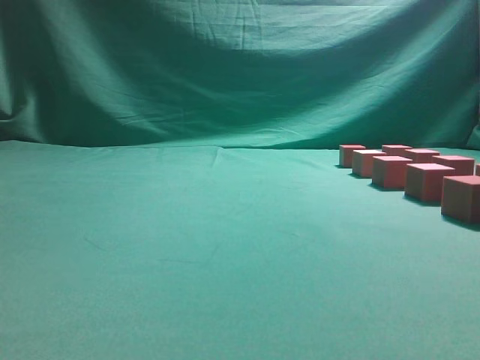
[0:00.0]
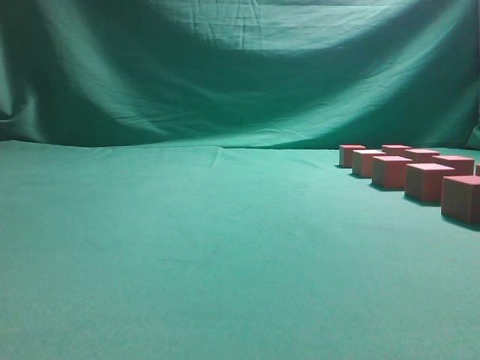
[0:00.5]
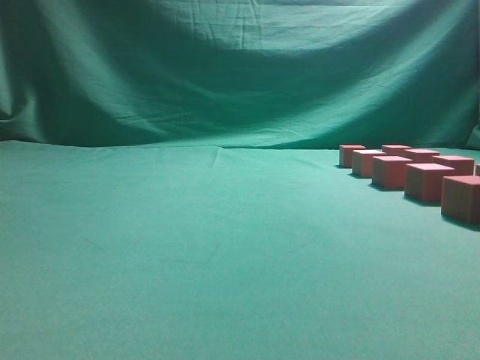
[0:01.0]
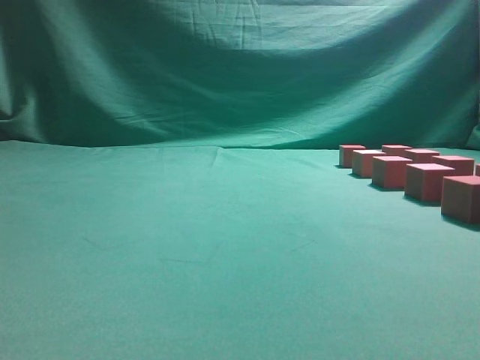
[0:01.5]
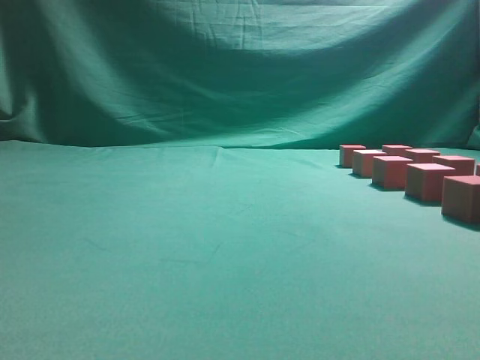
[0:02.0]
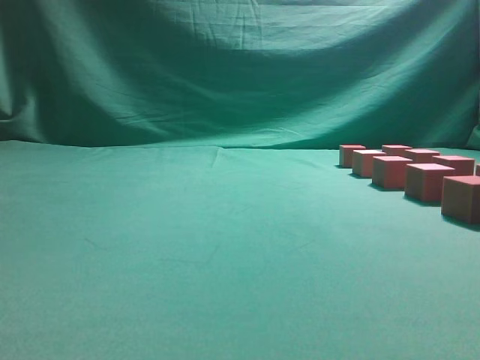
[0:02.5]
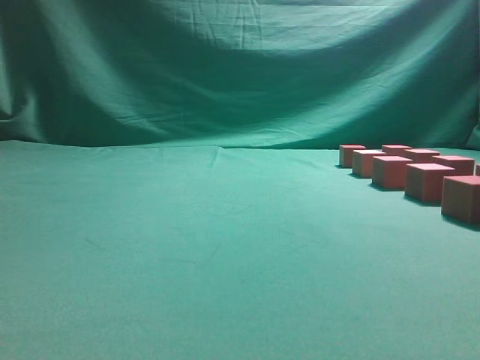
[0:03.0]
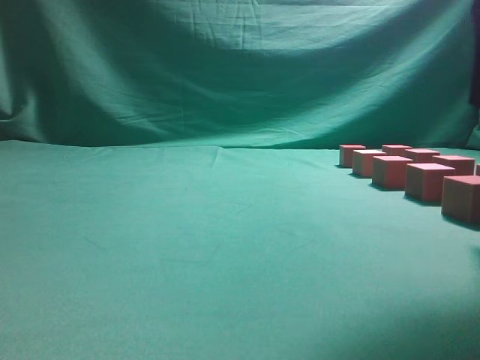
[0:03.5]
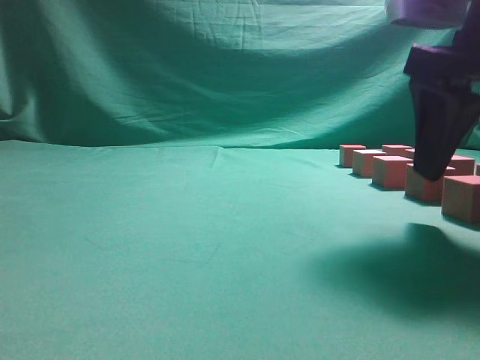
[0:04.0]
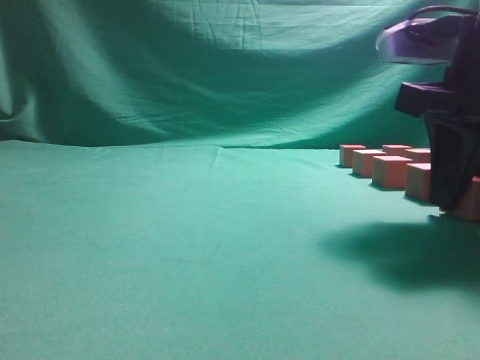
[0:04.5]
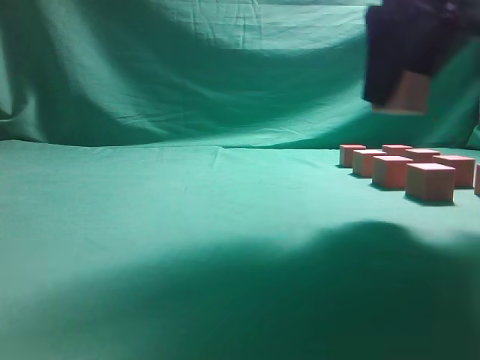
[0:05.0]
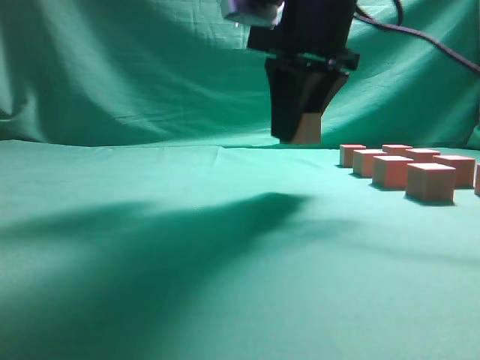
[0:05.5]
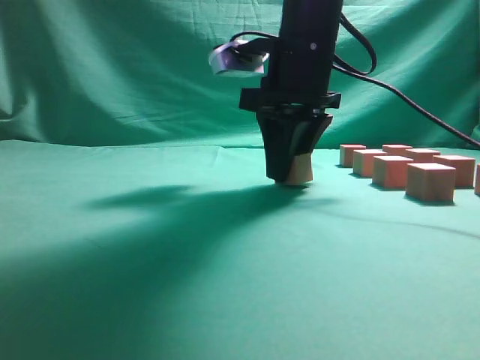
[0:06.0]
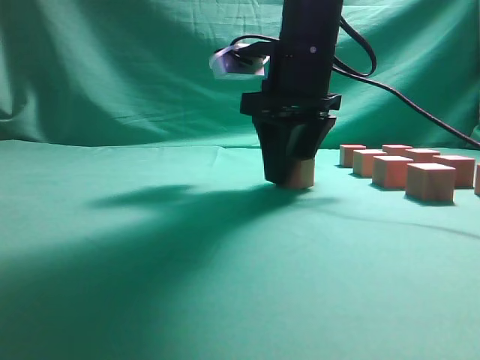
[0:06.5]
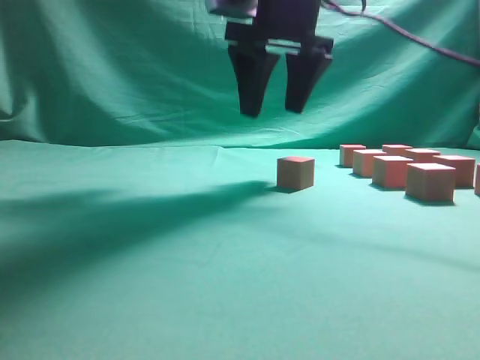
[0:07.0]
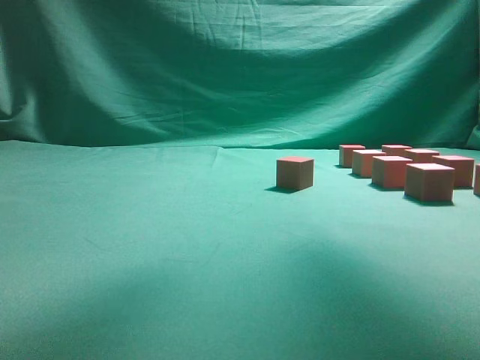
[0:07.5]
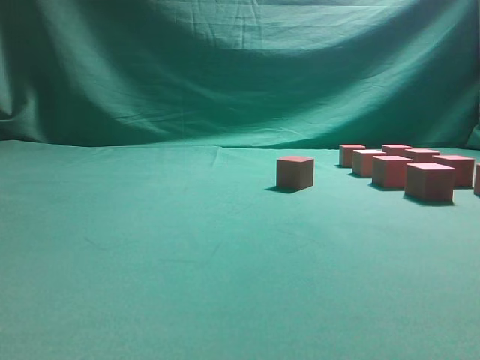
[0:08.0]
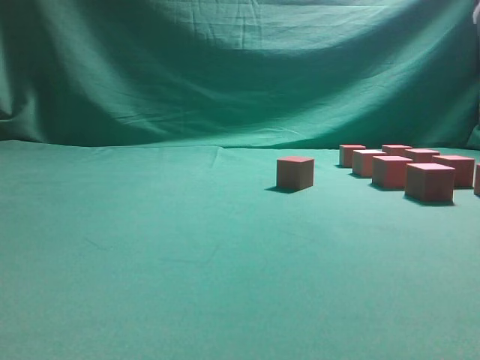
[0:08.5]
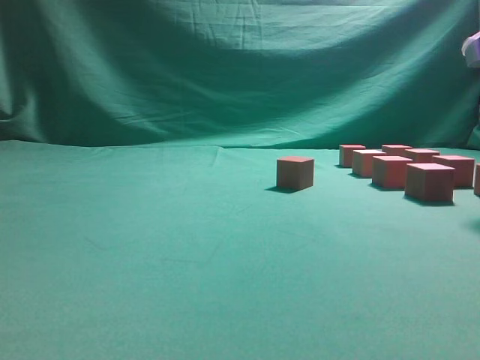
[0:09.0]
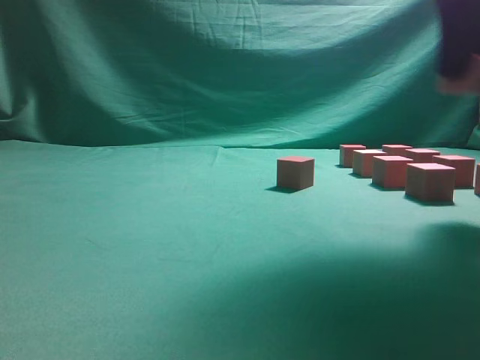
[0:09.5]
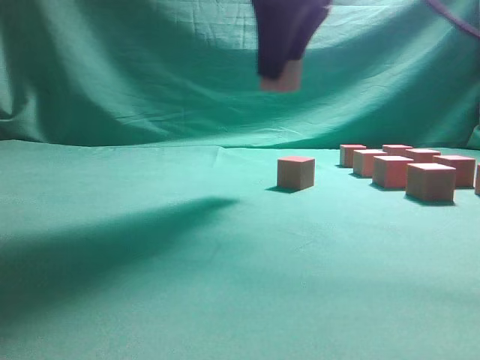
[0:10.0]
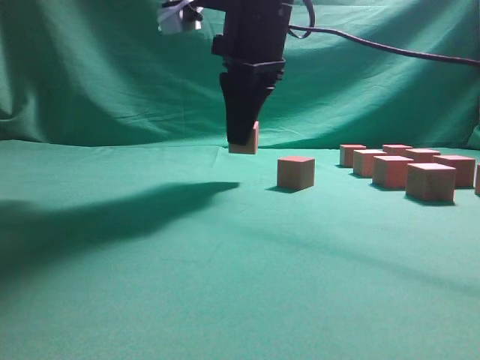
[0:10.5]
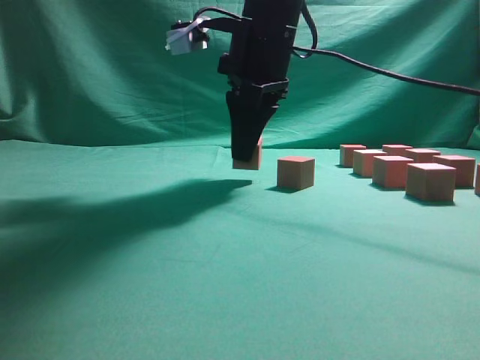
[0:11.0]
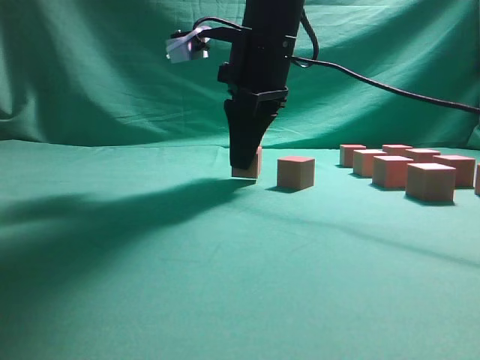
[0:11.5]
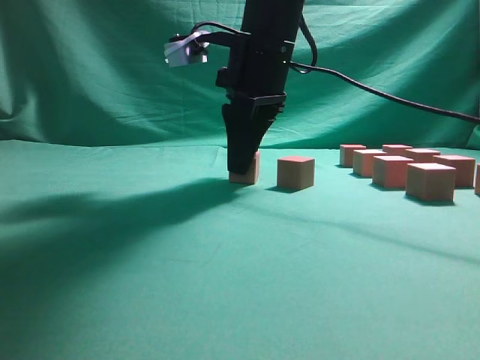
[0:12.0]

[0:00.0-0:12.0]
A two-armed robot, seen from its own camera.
Task of the whole recording: pick up the multiple cubes in two columns one by one and place them in another position on the table.
Step, 0:00.0 to 0:04.5: Pick up the block on the table.
Step, 0:05.0 to 0:07.0: Place the block at the correct position to assemble the letter S.
Step, 0:07.5 to 0:09.0: Pick up the block on the table.
0:02.0 to 0:04.0: The right gripper goes approximately 25 cm forward and to the left, and opens its fingers.
0:04.0 to 0:06.0: The right gripper heads to the left and forward, covering approximately 20 cm, and closes up.
0:06.0 to 0:08.0: The right gripper moves to the right, backward and upward, some 25 cm, and opens.
0:08.0 to 0:10.0: The right gripper moves to the left and forward, some 20 cm, and closes.
0:10.0 to 0:12.0: The right gripper is displaced downward by approximately 10 cm.

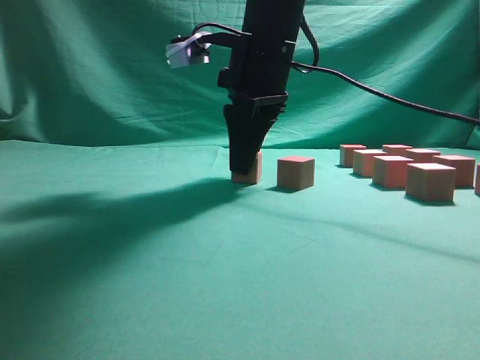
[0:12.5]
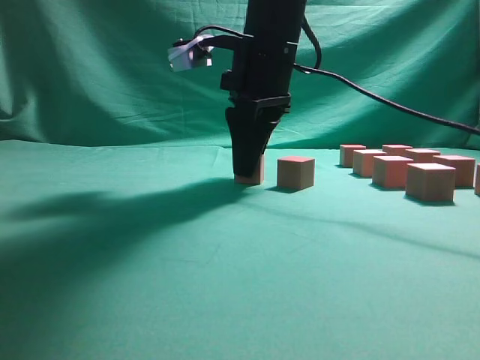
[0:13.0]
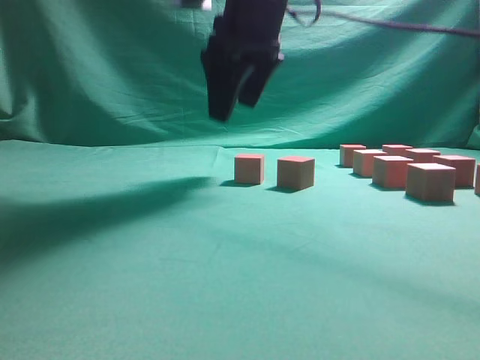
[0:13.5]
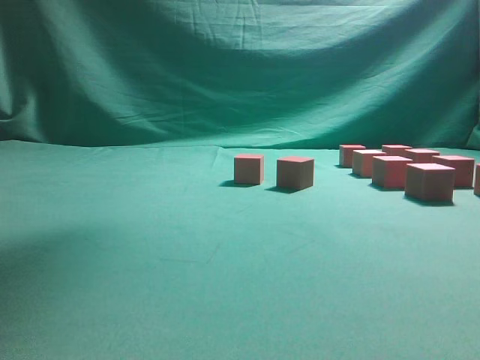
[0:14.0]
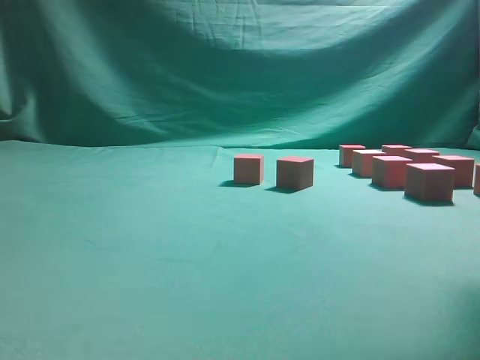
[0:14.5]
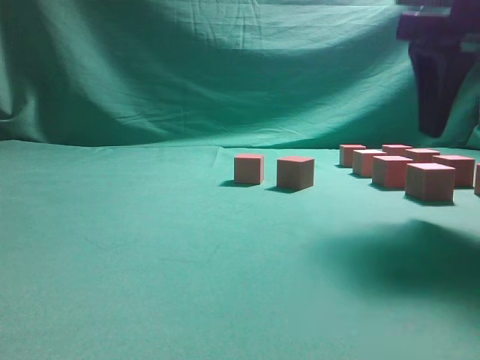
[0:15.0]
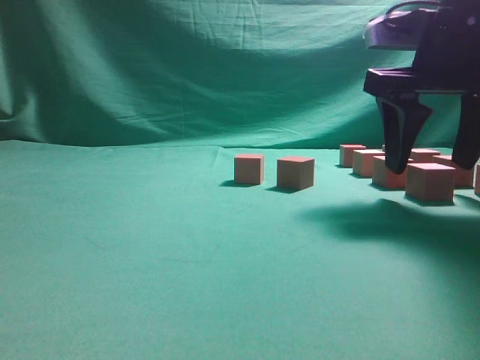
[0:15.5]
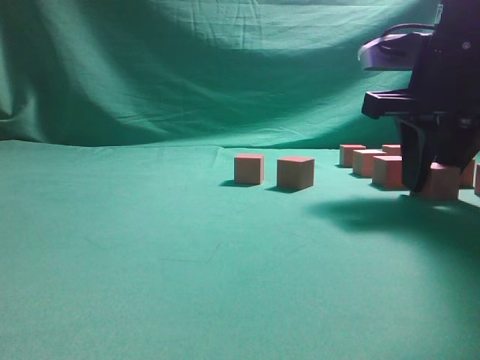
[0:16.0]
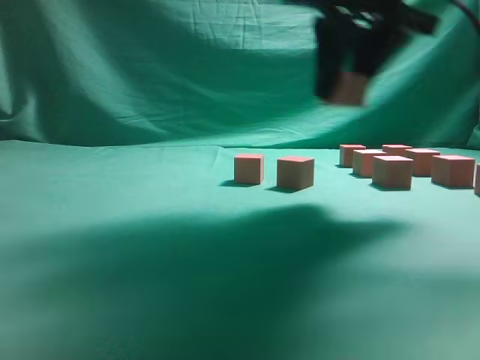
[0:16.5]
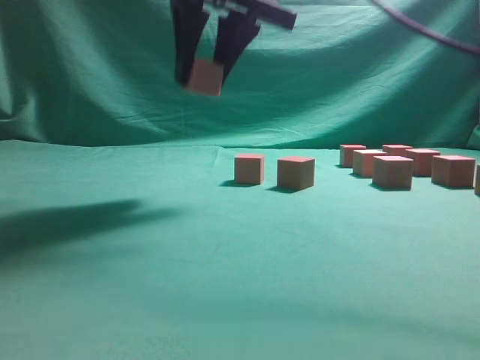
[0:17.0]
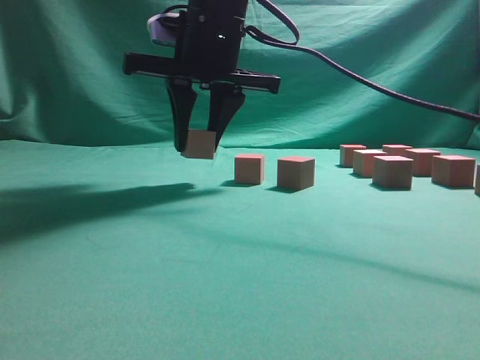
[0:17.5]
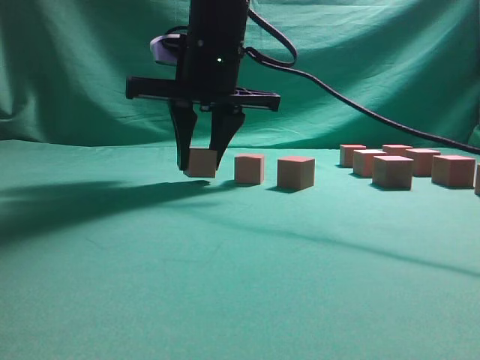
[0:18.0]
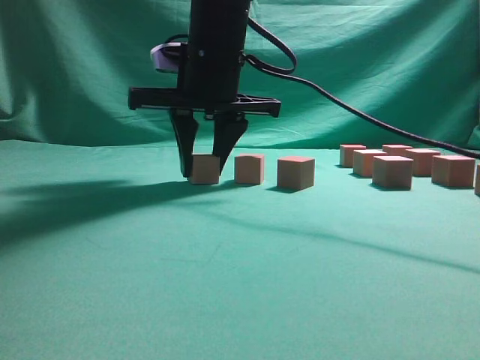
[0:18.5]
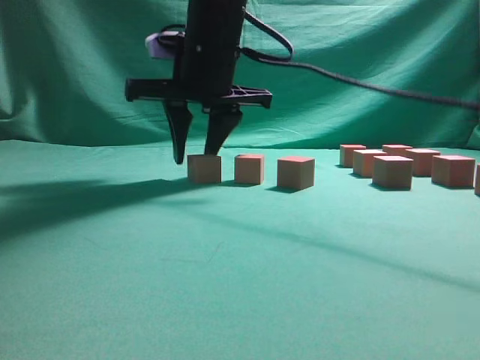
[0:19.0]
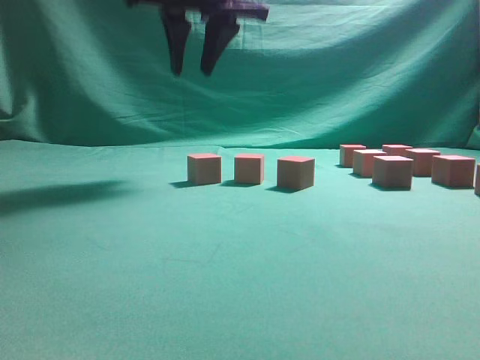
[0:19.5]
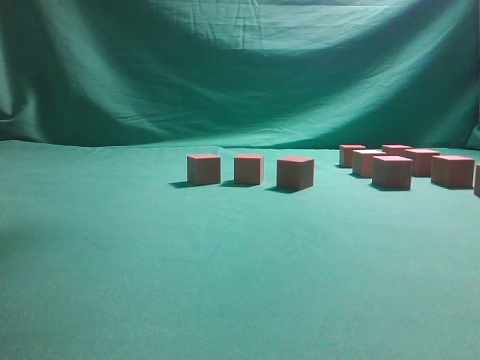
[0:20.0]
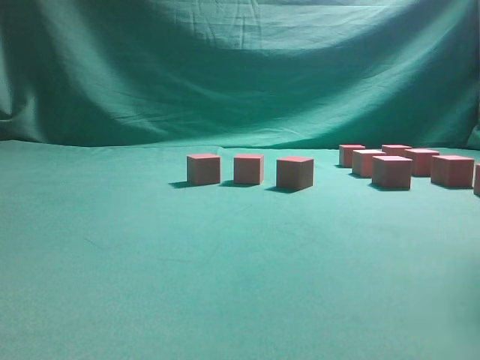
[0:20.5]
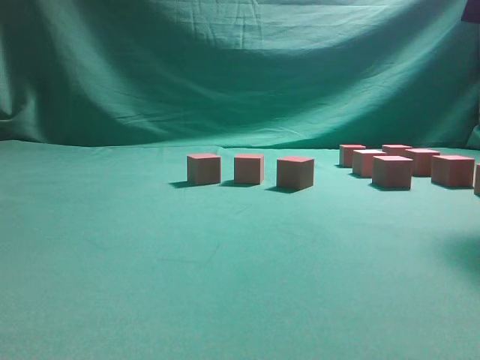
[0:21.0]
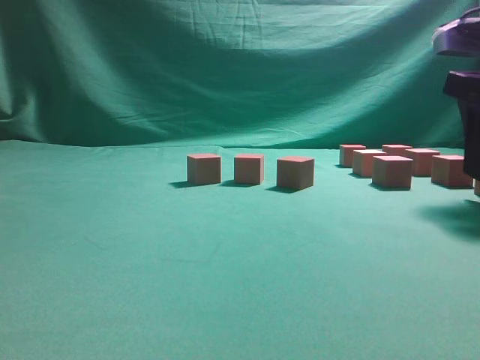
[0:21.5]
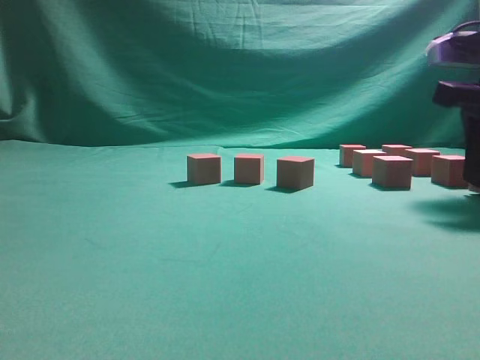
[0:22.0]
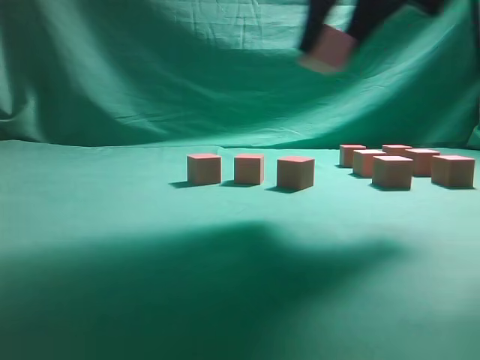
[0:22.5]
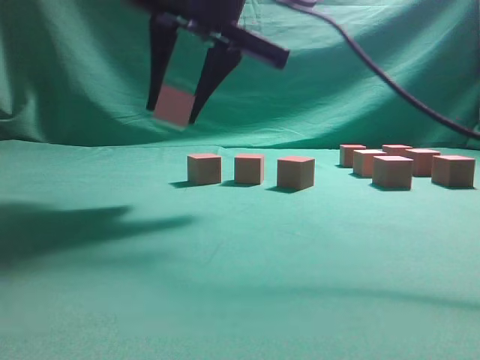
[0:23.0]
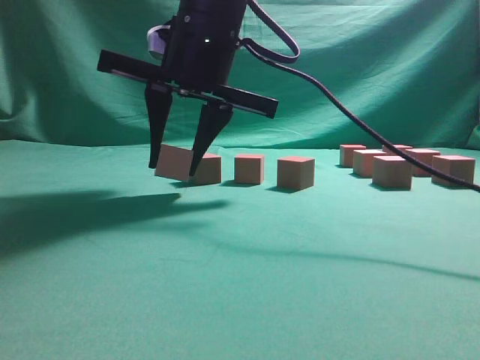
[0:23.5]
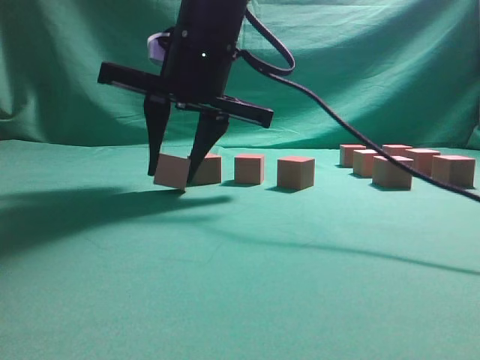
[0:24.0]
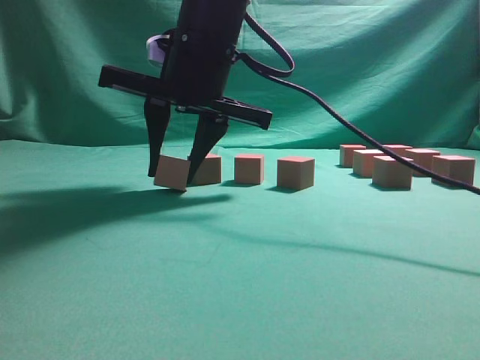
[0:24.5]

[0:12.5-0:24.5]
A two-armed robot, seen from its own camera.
Task of the whole recording: pick up the multiple cubes in two columns one by one and place them in another position on the table.
Step, 0:14.0 to 0:16.0: Pick up the block on the table.
Step, 0:16.5 to 0:19.5: Place the block at the correct position to assemble the letter S.
Step, 0:20.0 to 0:22.0: Pick up the block on the table.
0:12.5 to 0:14.5: The right gripper goes roughly 25 cm to the right, upward and backward, and opens up.
0:14.5 to 0:16.5: The right gripper travels downward, to the left and forward by roughly 15 cm, and closes.
0:16.5 to 0:18.5: The right gripper travels to the left and downward by some 15 cm.
0:18.5 to 0:20.5: The right gripper moves to the right and upward, roughly 30 cm.
0:20.5 to 0:22.5: The right gripper is displaced to the left by some 15 cm, and goes downward and returns, approximately 15 cm each way.
0:22.5 to 0:24.5: The right gripper moves to the left and downward, about 20 cm.

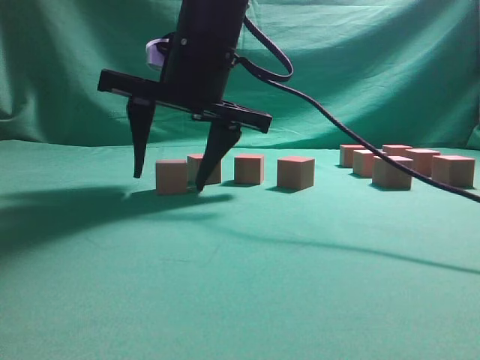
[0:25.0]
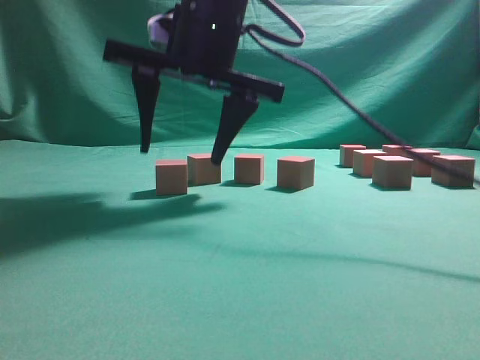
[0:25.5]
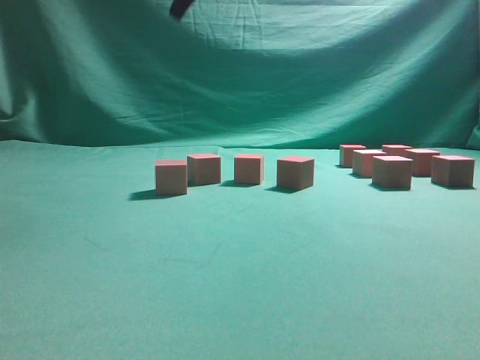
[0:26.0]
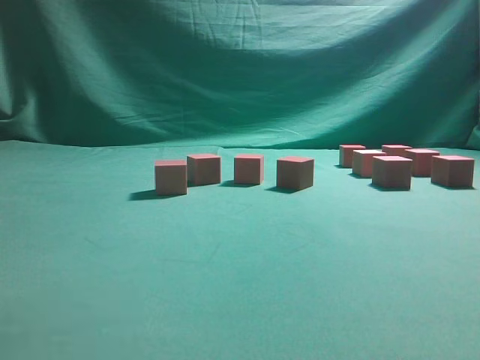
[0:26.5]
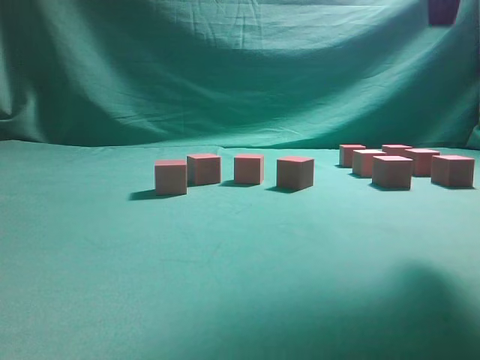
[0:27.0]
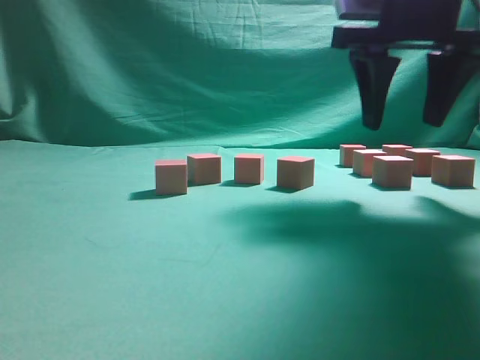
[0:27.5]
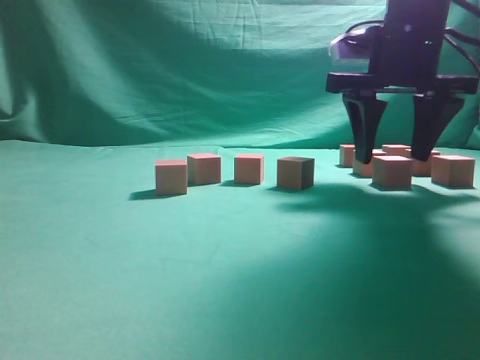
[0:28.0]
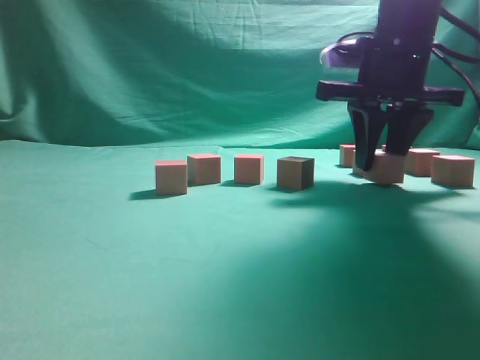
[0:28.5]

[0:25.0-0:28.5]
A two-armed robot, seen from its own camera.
Task of the whole recording: pick up the multiple cubes in two columns one by one and place them in another position on the table.
0:25.0 to 0:27.0: The right gripper moves to the right and upward, approximately 25 cm.
0:27.0 to 0:28.5: The right gripper travels downward and forward by approximately 20 cm, and closes its fingers.
